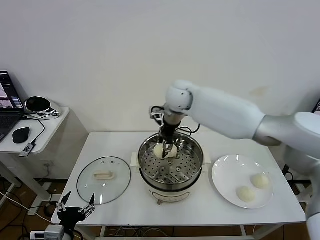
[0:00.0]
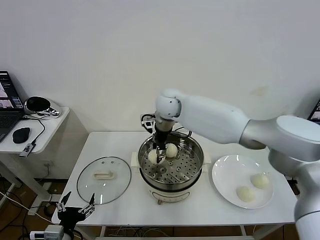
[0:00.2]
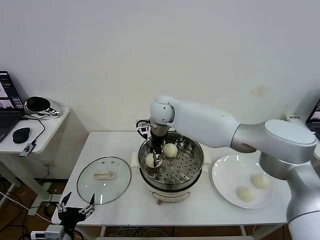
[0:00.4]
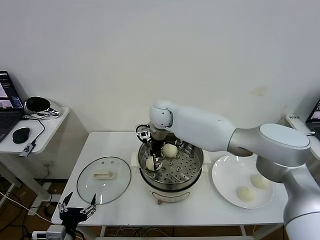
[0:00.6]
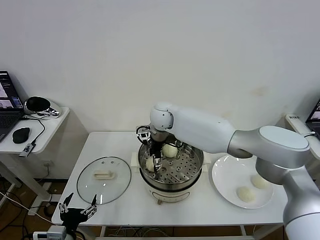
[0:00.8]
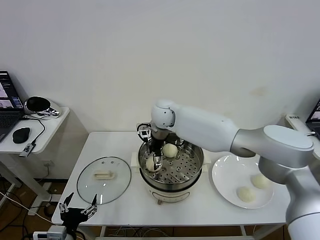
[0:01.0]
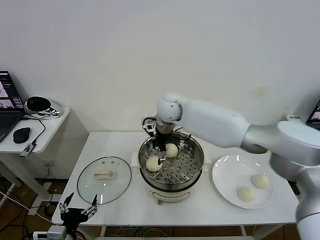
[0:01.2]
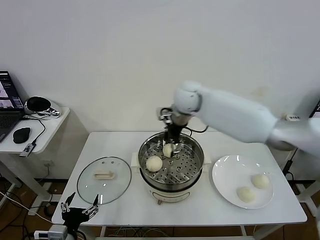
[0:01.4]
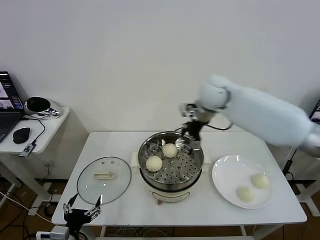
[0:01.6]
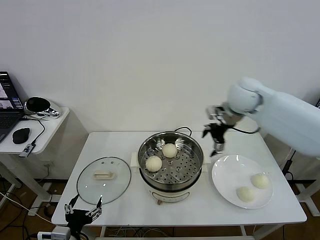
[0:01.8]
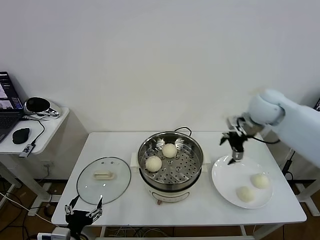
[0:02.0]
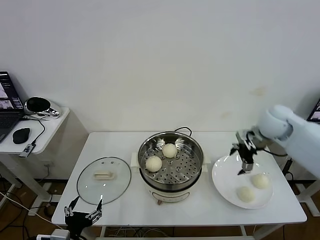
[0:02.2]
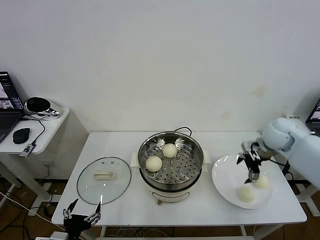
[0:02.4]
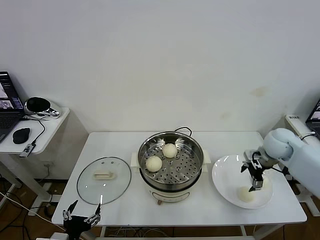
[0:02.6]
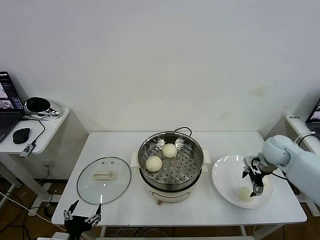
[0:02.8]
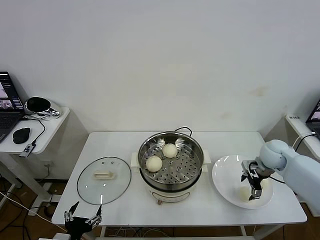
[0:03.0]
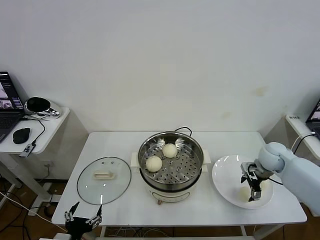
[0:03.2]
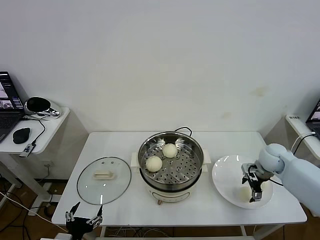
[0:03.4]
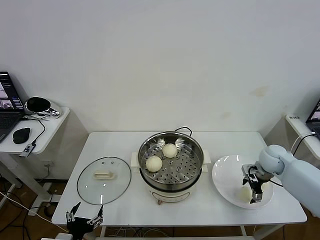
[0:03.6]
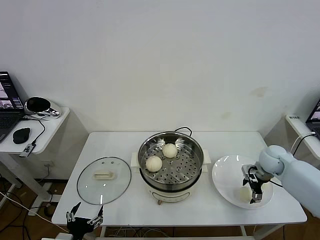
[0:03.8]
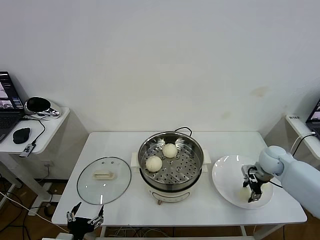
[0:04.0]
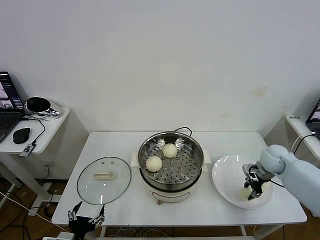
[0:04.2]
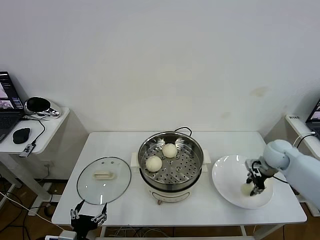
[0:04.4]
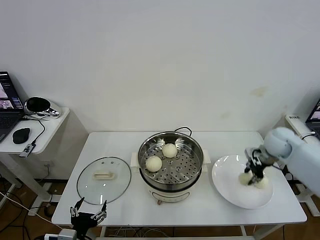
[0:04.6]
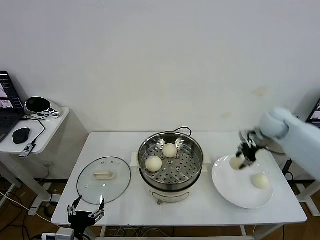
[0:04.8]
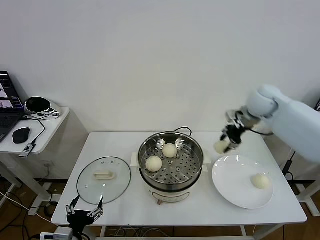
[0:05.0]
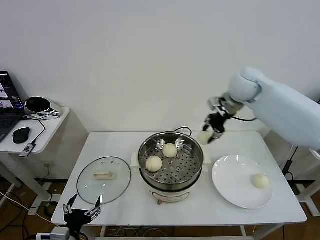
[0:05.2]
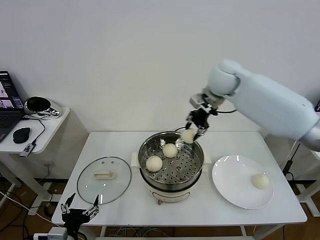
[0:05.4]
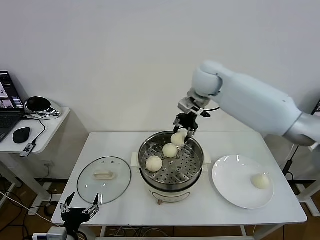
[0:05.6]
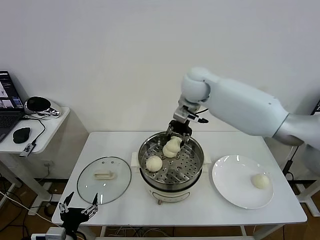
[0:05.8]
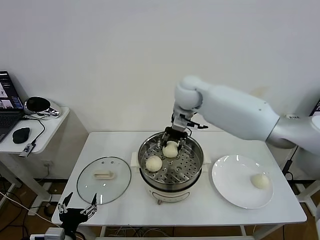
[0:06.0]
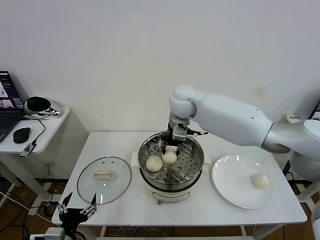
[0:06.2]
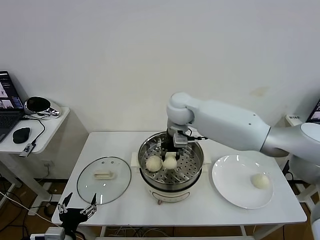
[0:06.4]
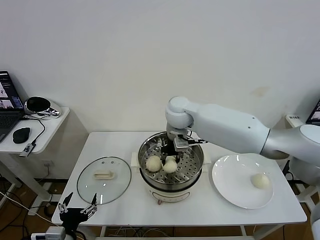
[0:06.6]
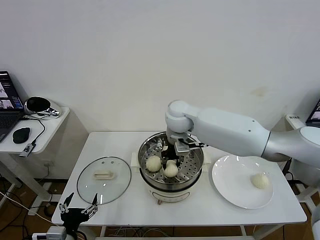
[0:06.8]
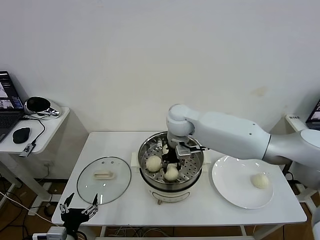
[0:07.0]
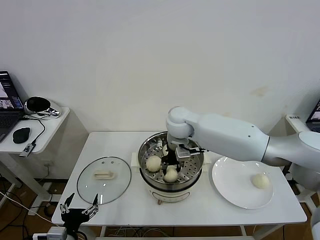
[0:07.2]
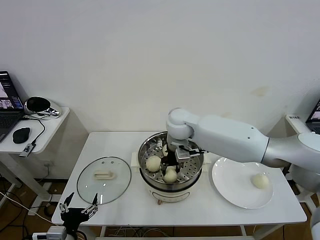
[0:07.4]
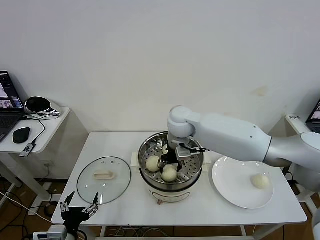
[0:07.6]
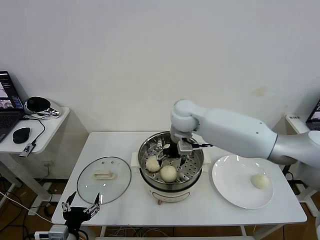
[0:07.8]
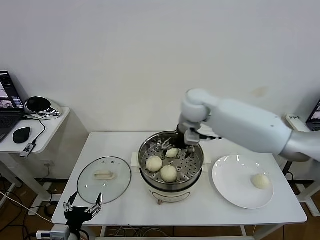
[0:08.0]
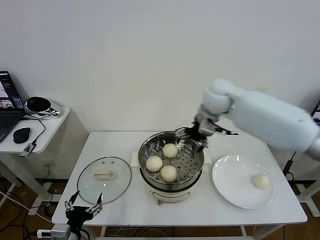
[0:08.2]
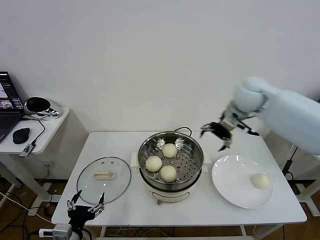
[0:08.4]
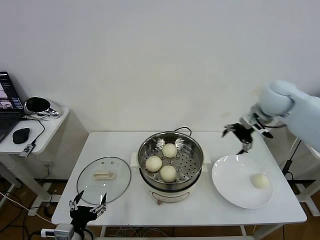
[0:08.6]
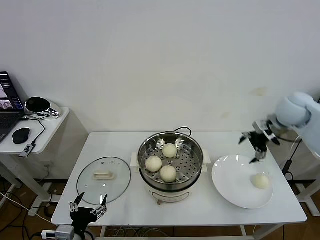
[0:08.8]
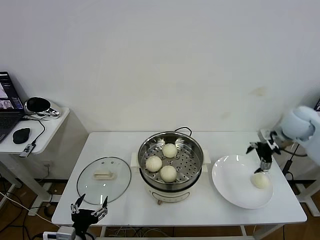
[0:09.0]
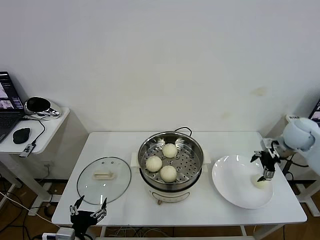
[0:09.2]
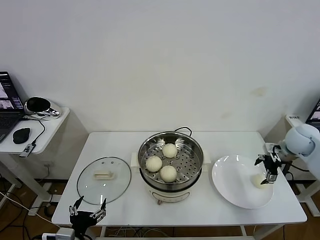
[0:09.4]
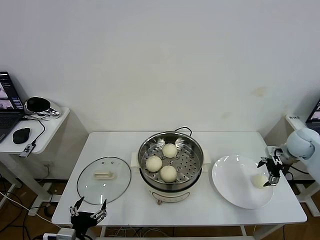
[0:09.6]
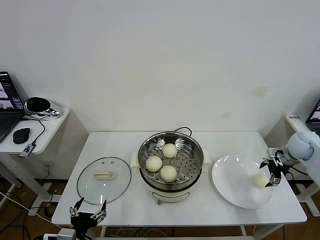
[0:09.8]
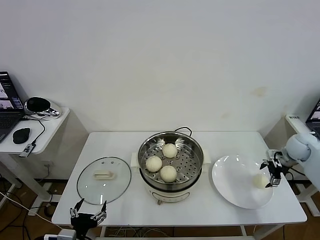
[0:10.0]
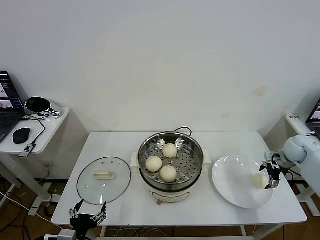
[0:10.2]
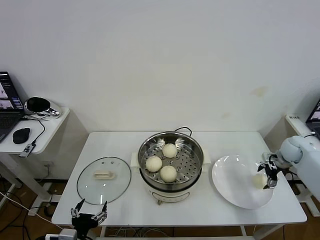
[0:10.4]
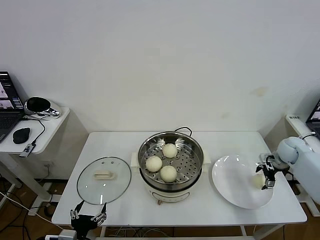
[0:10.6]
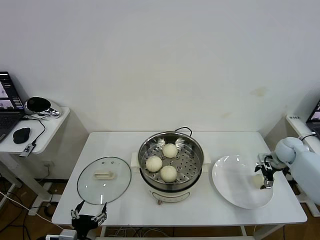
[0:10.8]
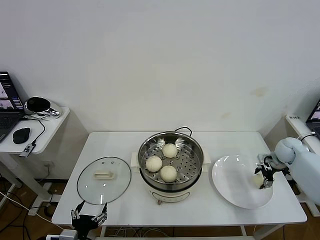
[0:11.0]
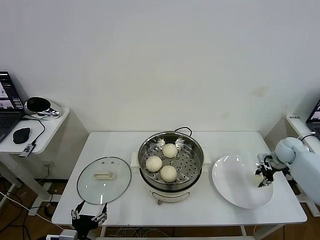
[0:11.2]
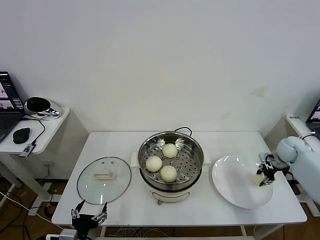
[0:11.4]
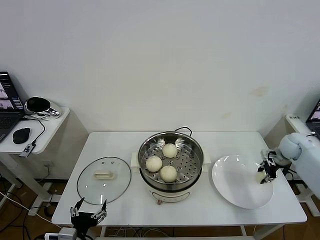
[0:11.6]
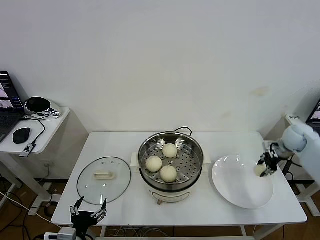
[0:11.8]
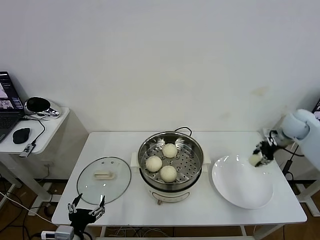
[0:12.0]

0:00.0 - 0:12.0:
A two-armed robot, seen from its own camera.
Task of the whole recording: take steamed baozi put them in steamer then cover it.
Step, 0:01.4 - 0:04.0: Grasp the baozi in the plate with right gripper.
Step, 0:04.2 - 0:08.0: Place the baozi on the steamer with right gripper.
Step, 0:08.2 - 0:11.2: Grasp the baozi in the plate with right gripper.
0:00.0 - 0:01.6: The right gripper shifts roughly 15 cm to the right, and opens.
0:01.6 - 0:03.0: The right gripper is displaced downward and to the right by some 30 cm.
0:03.0 - 0:04.4: The right gripper closes up.
0:04.4 - 0:06.0: The right gripper goes some 35 cm to the left and upward.
0:06.0 - 0:07.6: The right gripper shifts approximately 5 cm downward, and opens up.
0:07.6 - 0:09.0: The right gripper shifts approximately 35 cm to the right.
0:09.0 - 0:10.4: The right gripper travels downward and to the right by approximately 15 cm.
0:10.4 - 0:12.0: The right gripper goes about 10 cm upward, and closes.

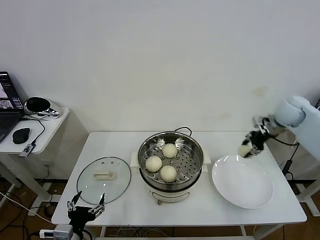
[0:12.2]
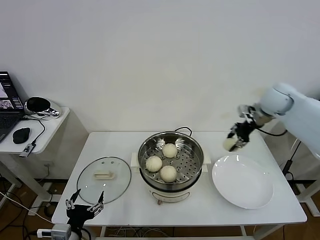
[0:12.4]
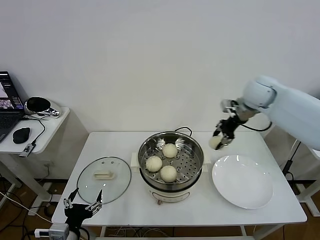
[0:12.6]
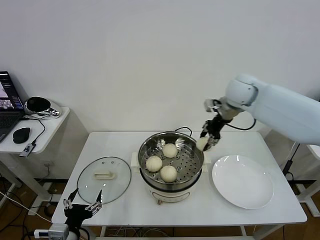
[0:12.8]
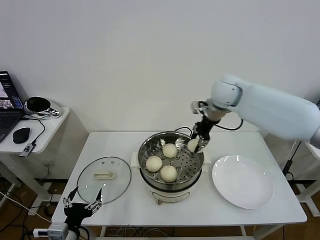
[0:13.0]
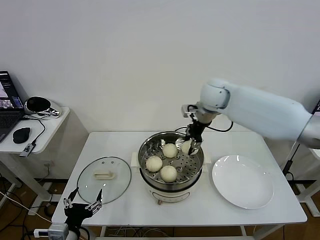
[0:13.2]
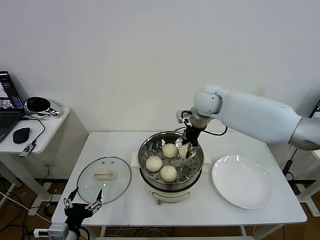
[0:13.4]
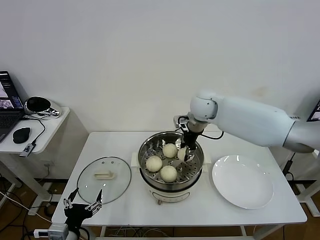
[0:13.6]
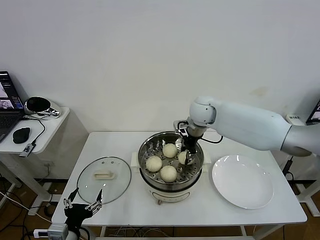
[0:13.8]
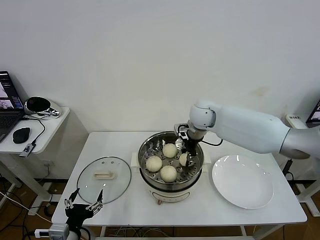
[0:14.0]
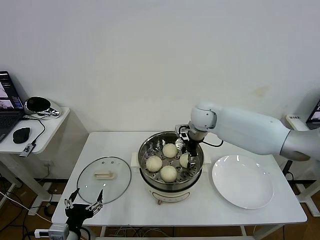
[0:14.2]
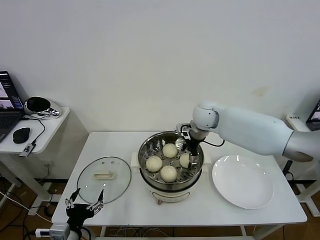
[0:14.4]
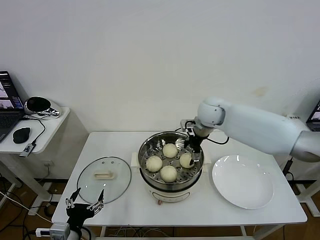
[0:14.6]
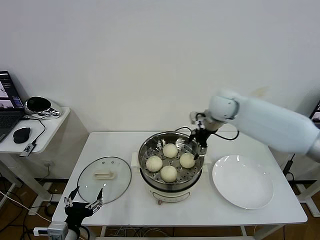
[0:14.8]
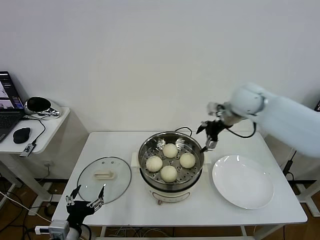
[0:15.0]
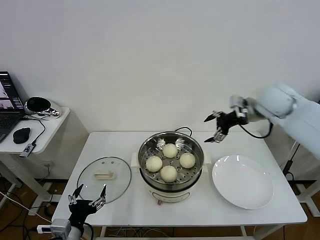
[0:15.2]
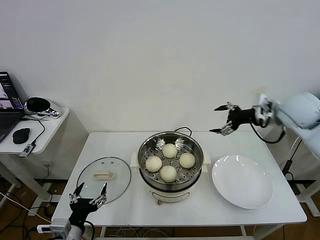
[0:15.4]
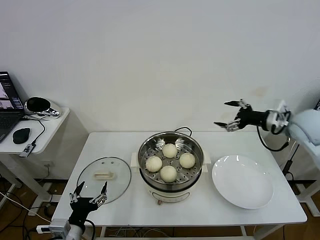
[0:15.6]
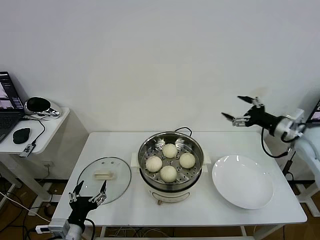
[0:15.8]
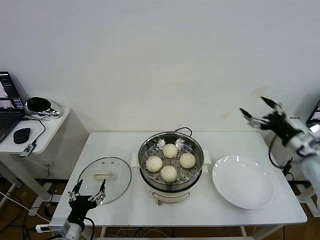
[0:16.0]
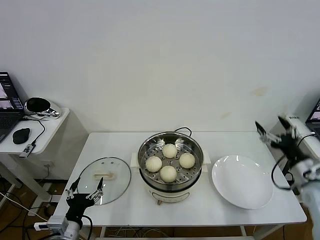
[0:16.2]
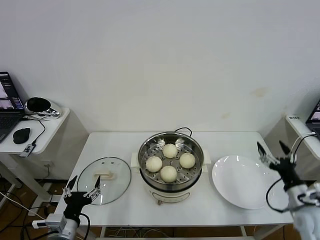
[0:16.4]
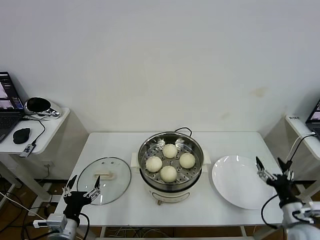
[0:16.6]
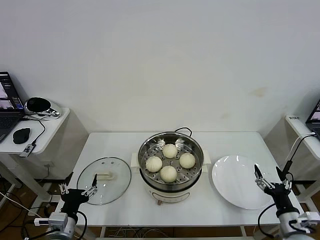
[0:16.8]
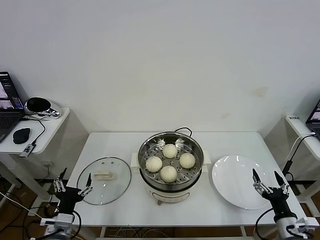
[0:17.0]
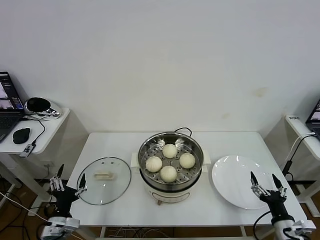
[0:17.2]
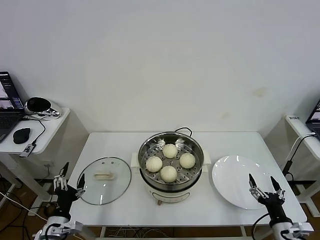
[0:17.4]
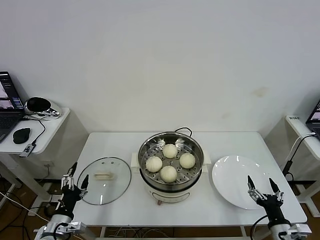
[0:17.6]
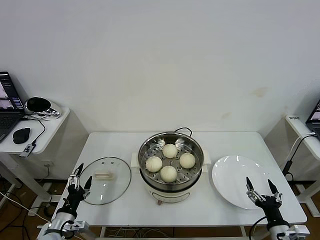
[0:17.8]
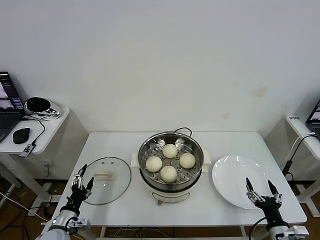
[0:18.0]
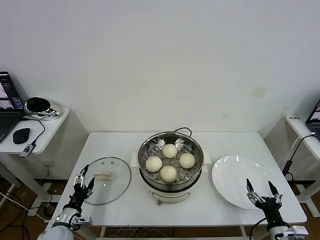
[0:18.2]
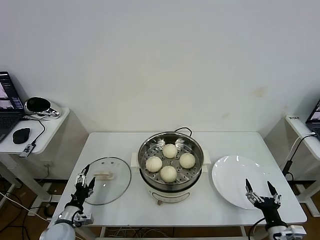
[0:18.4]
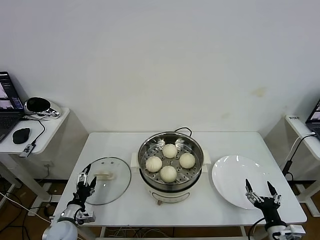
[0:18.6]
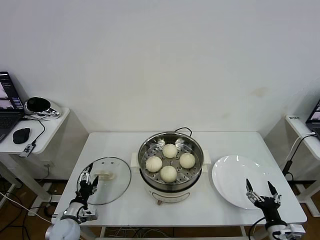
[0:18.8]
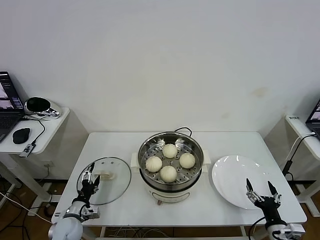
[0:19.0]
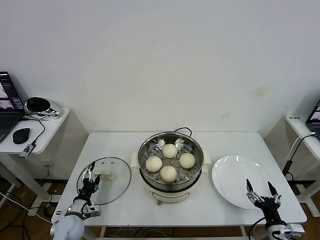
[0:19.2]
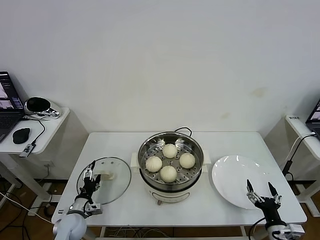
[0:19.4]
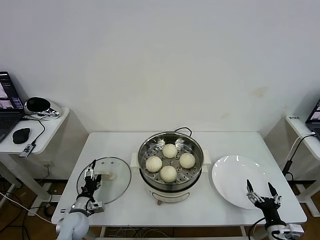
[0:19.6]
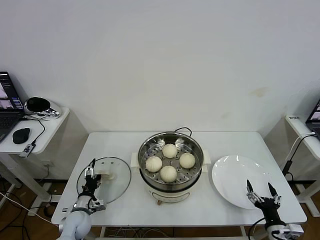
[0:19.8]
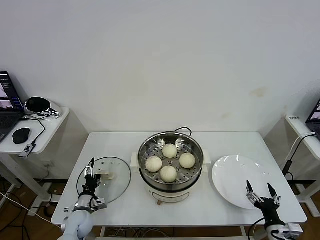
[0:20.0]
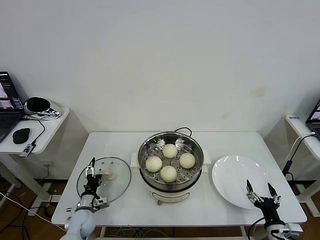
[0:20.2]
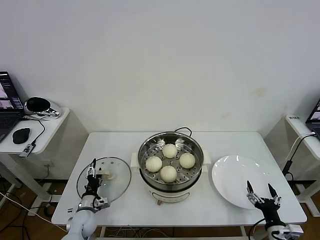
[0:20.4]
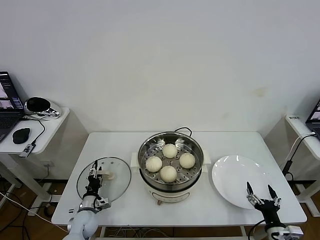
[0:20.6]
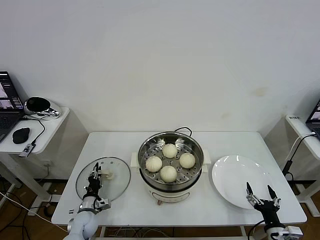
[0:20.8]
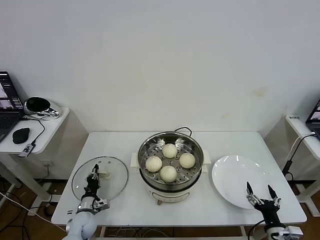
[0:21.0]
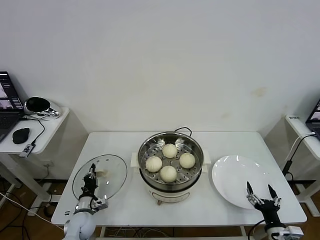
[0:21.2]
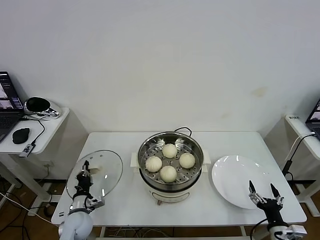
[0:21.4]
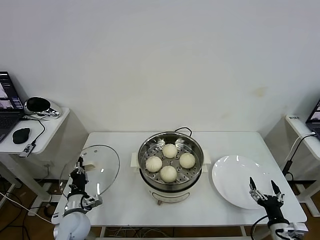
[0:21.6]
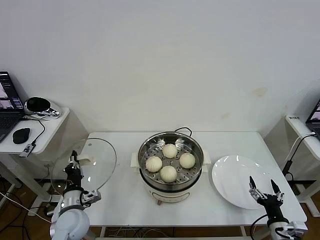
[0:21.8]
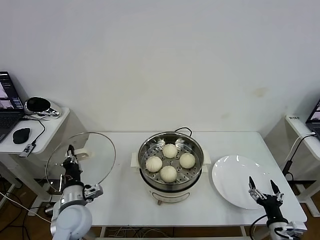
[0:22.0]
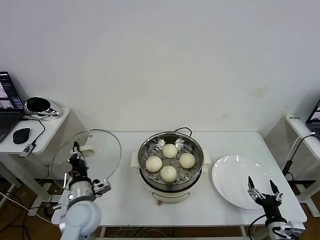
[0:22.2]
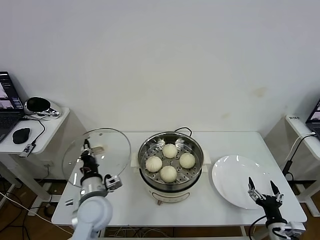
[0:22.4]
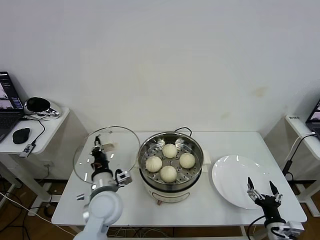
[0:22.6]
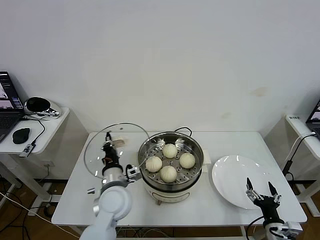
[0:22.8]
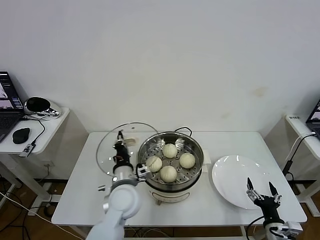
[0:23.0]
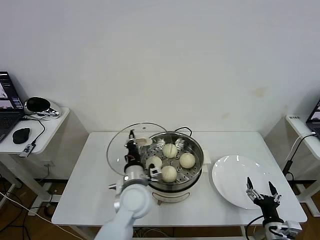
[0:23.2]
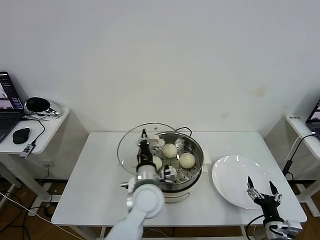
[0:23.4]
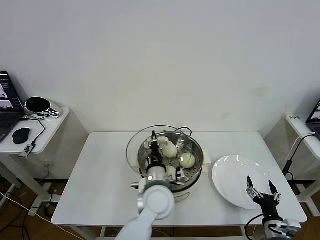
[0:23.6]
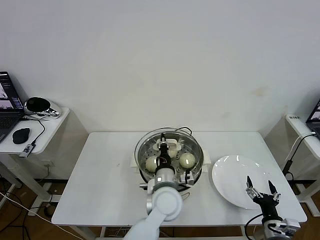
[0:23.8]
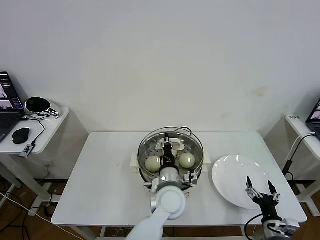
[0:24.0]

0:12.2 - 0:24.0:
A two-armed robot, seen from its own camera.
Task of the whole recording: take steamed baozi put them in steamer then cover it.
Step, 0:12.2 - 0:14.6: Place the baozi on the steamer with right gripper.
Step, 0:14.8 - 0:21.2: Grasp the pot lid with left gripper.
0:12.2 - 0:13.6: The right gripper goes roughly 25 cm to the left.
0:13.6 - 0:15.2: The right gripper heads to the right, covering approximately 20 cm, and opens up.
0:15.2 - 0:16.6: The right gripper goes about 40 cm backward and downward.
0:16.6 - 0:18.2: The left gripper heads downward, forward and to the left, covering about 15 cm. The right gripper travels backward and downward by roughly 5 cm.
0:18.2 - 0:19.6: The left gripper shifts some 5 cm forward.
0:19.6 - 0:21.0: The left gripper closes up.
0:21.0 - 0:22.6: The left gripper moves upward and to the right, approximately 25 cm.
0:22.6 - 0:24.0: The left gripper travels to the right by about 20 cm.
